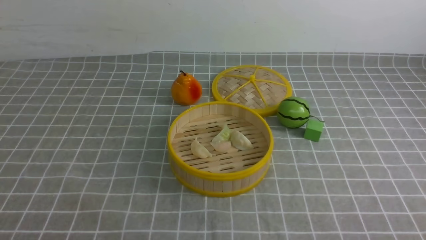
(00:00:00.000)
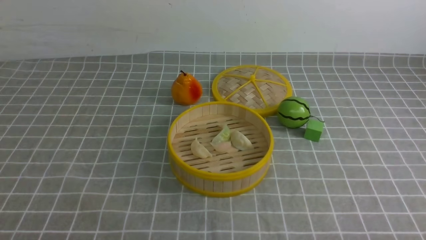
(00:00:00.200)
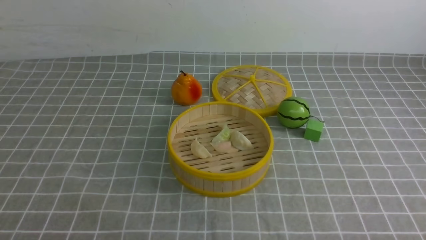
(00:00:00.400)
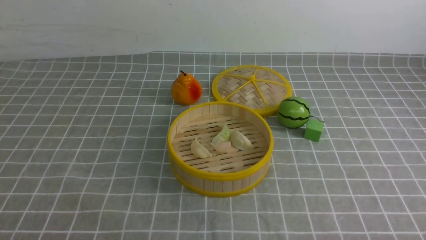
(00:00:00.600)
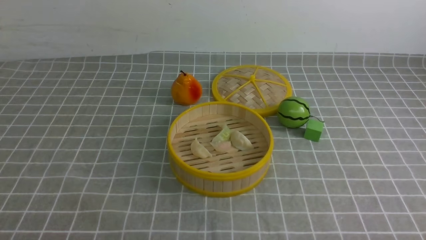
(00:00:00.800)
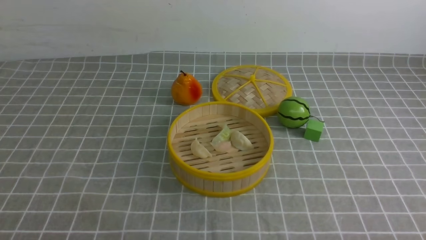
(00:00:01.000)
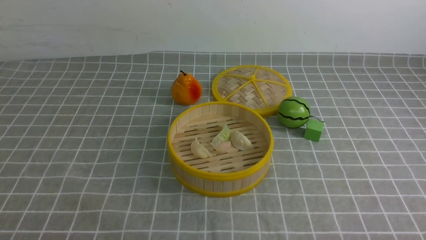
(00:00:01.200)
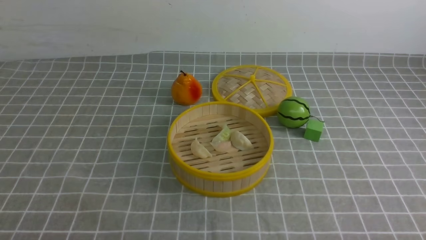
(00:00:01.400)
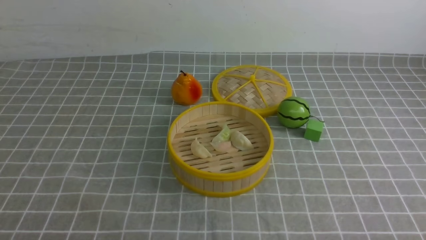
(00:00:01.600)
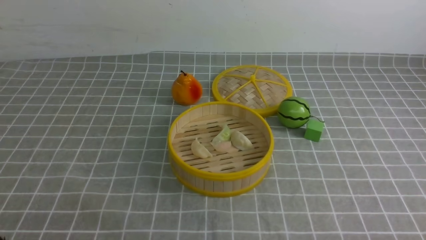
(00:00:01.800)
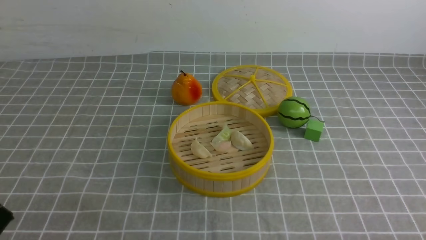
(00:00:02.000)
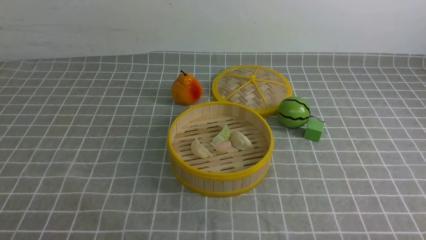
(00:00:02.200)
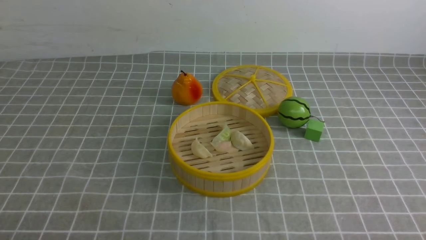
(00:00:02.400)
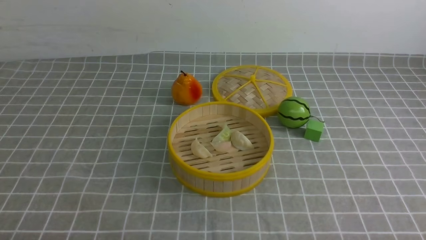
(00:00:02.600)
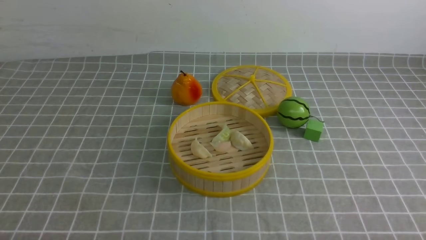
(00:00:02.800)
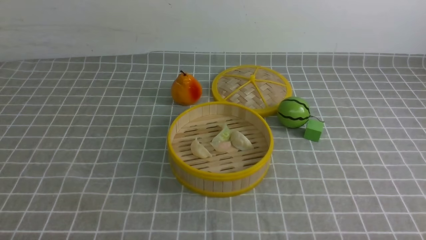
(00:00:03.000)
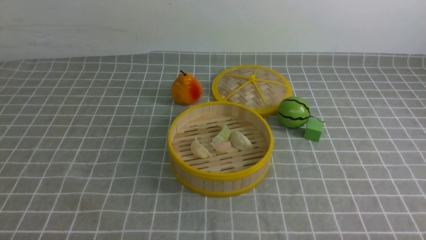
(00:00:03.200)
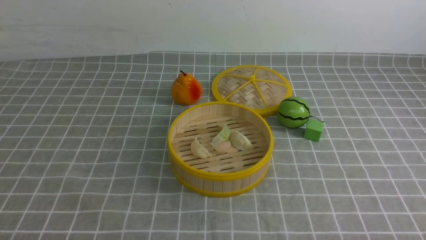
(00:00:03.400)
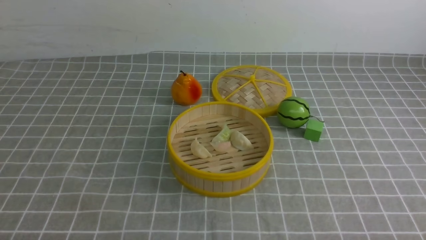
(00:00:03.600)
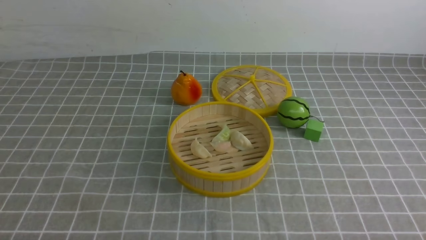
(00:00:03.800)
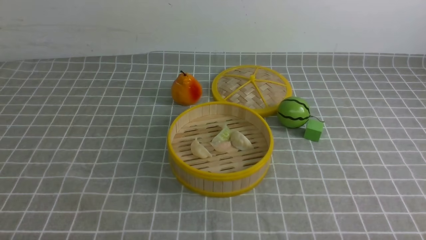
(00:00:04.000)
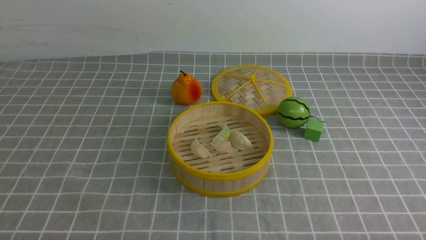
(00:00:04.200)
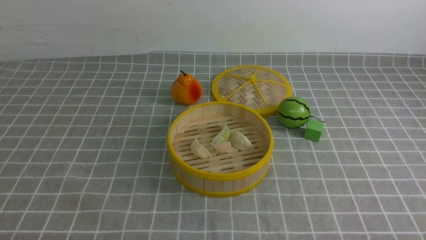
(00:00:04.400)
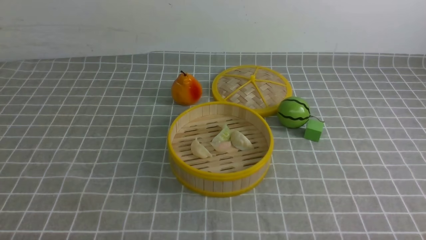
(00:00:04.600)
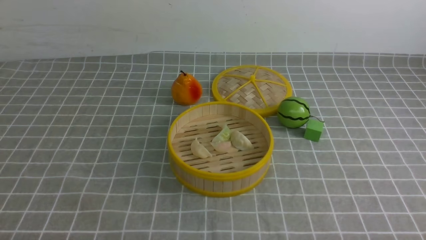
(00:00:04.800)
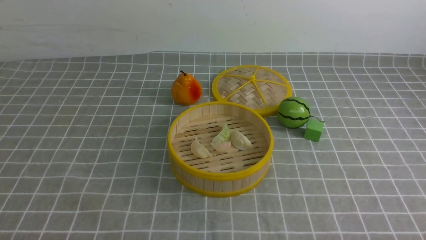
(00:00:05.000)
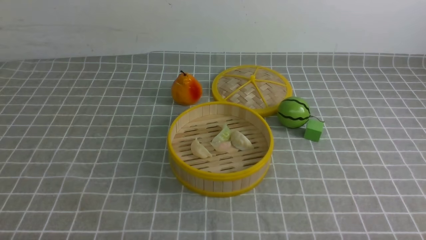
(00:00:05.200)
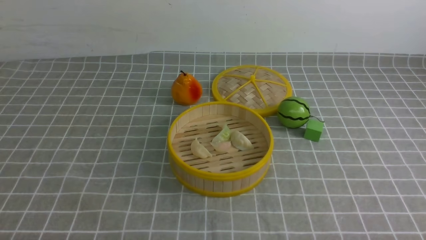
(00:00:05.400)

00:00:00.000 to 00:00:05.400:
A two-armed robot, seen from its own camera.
Task of the whole recording: put the dumplings into the steamer on the table with the grey tablecloth.
00:00:02.800 to 00:00:05.400: The two grippers keep their place.

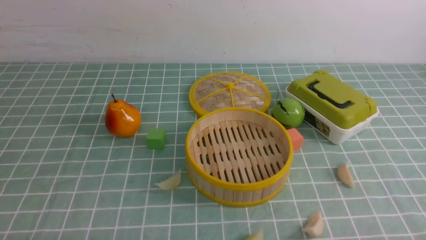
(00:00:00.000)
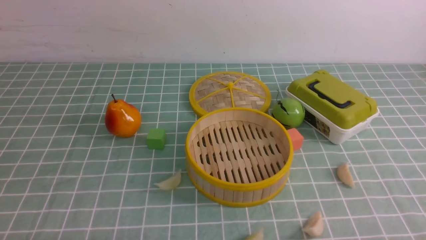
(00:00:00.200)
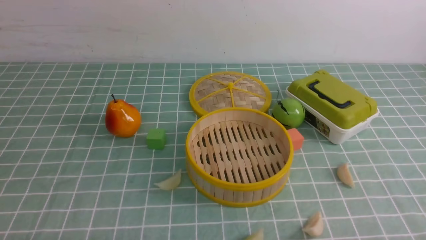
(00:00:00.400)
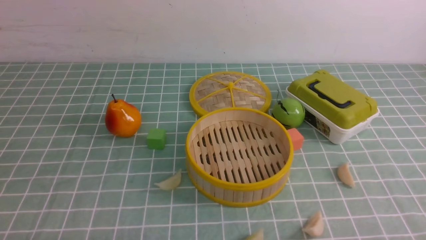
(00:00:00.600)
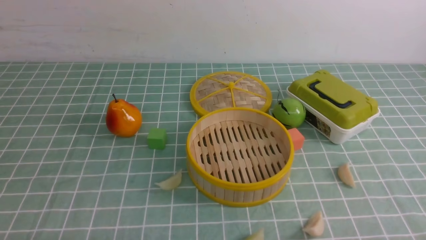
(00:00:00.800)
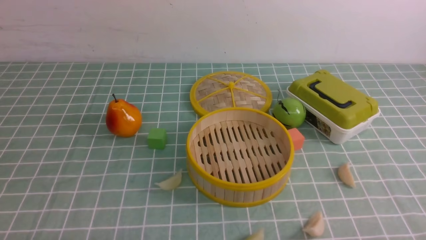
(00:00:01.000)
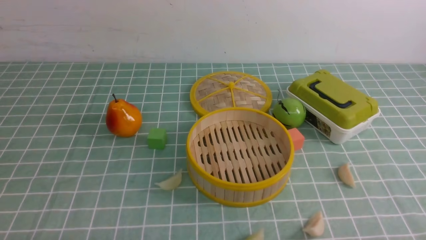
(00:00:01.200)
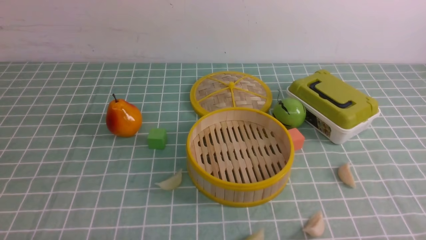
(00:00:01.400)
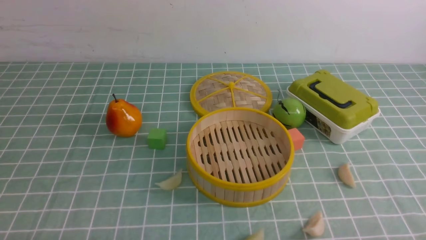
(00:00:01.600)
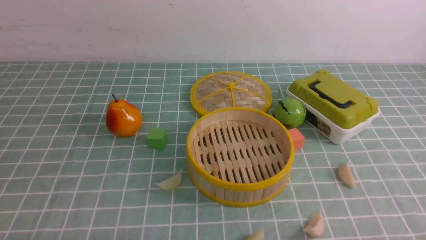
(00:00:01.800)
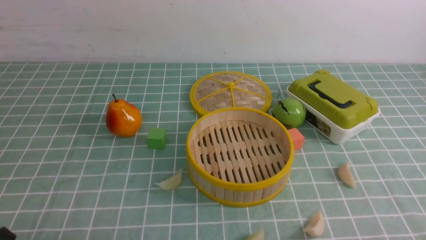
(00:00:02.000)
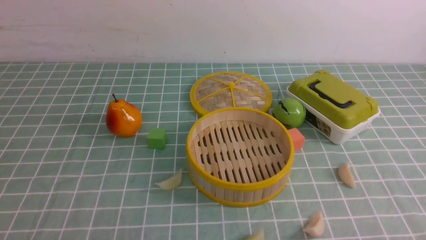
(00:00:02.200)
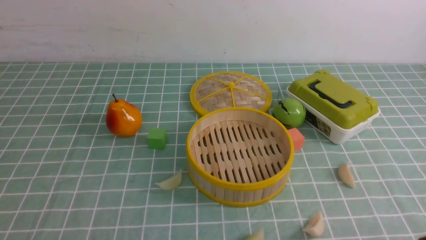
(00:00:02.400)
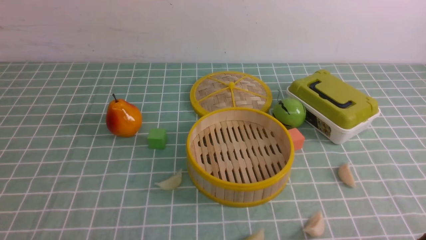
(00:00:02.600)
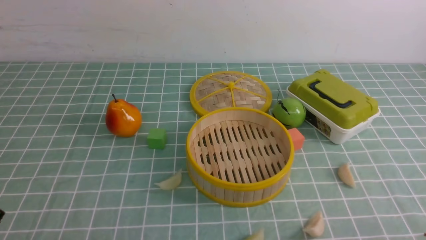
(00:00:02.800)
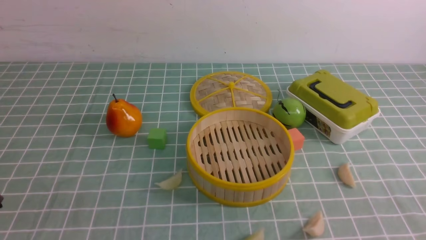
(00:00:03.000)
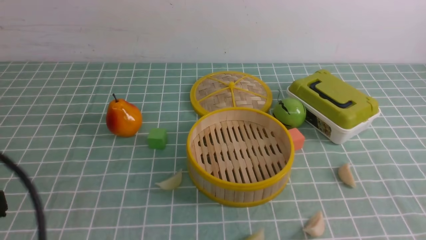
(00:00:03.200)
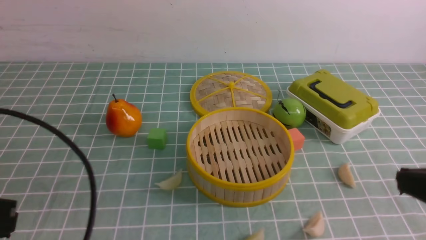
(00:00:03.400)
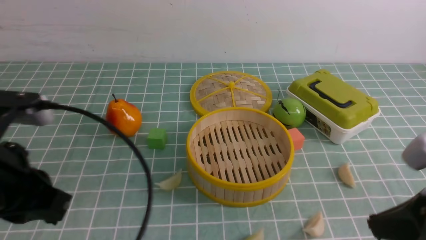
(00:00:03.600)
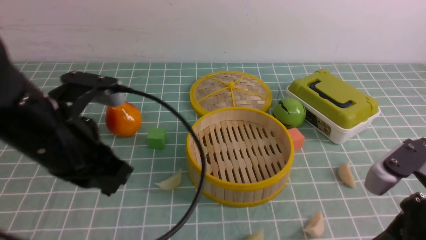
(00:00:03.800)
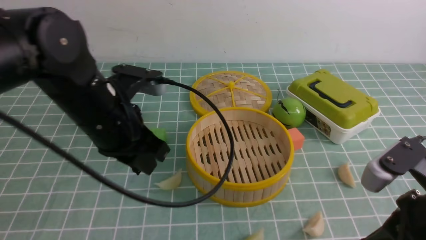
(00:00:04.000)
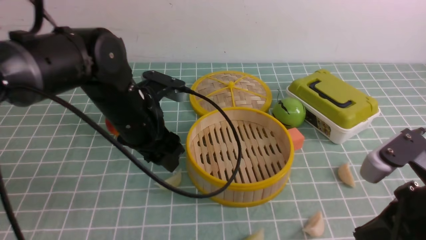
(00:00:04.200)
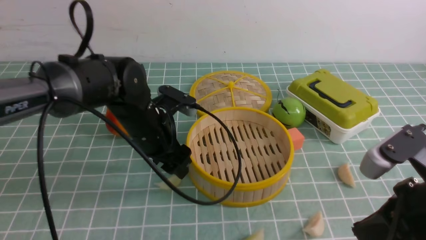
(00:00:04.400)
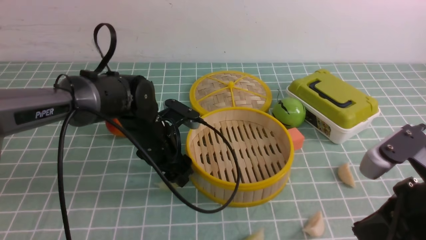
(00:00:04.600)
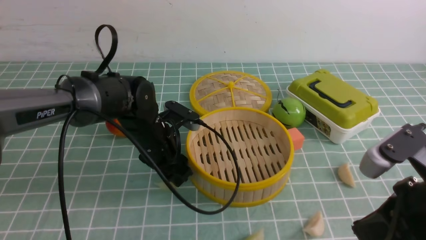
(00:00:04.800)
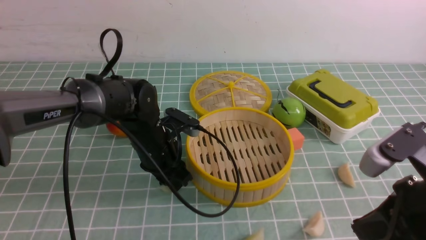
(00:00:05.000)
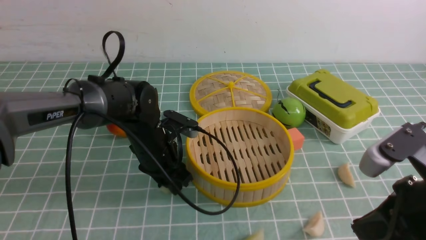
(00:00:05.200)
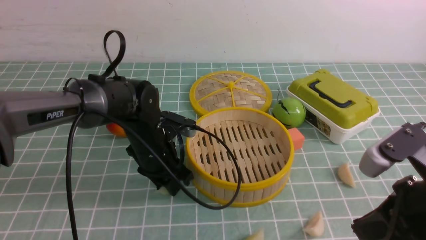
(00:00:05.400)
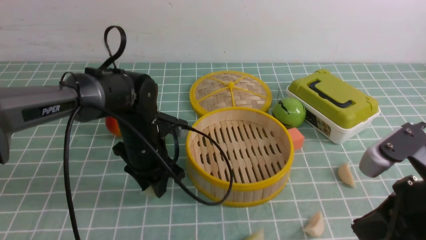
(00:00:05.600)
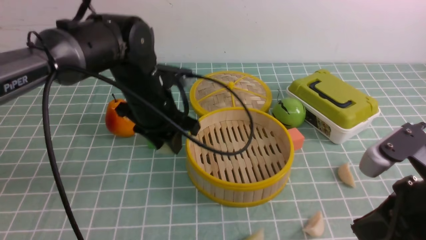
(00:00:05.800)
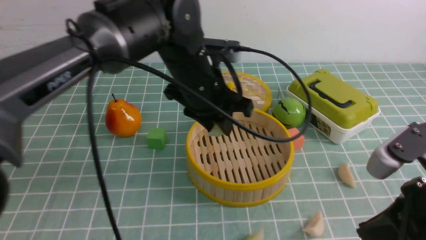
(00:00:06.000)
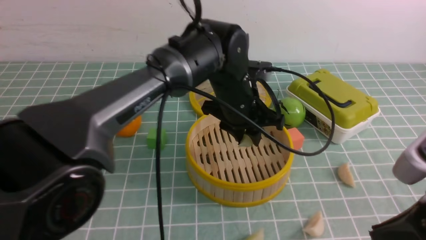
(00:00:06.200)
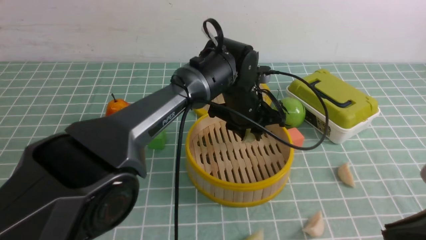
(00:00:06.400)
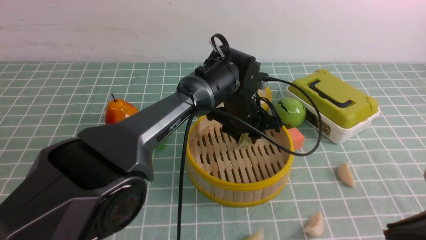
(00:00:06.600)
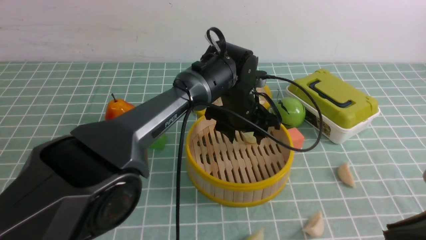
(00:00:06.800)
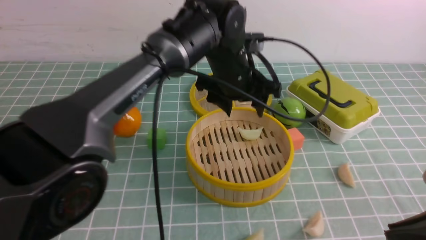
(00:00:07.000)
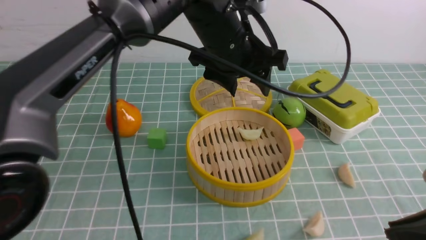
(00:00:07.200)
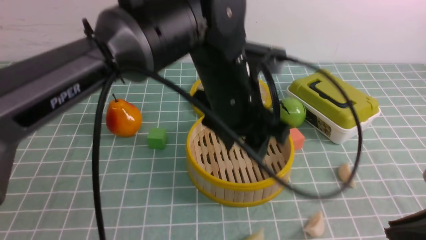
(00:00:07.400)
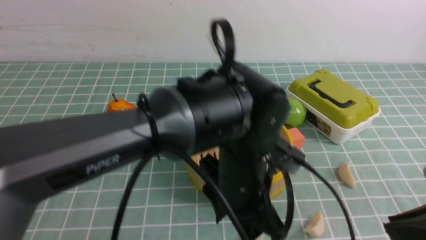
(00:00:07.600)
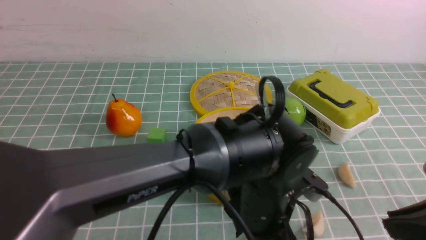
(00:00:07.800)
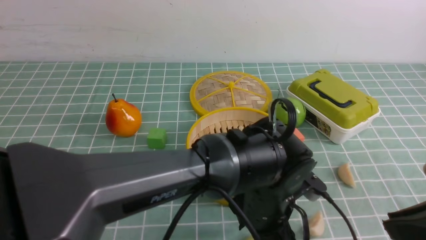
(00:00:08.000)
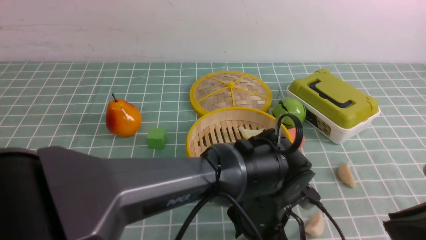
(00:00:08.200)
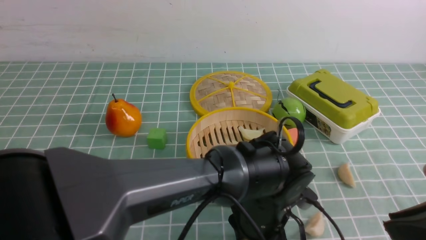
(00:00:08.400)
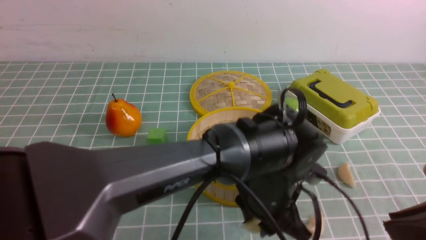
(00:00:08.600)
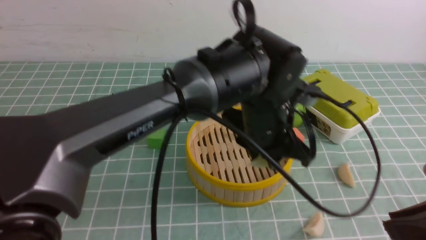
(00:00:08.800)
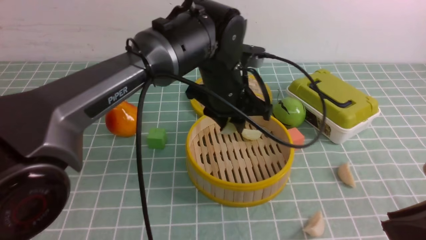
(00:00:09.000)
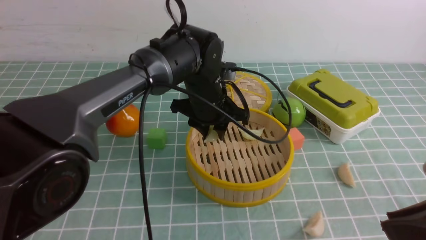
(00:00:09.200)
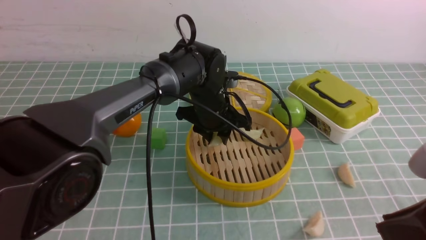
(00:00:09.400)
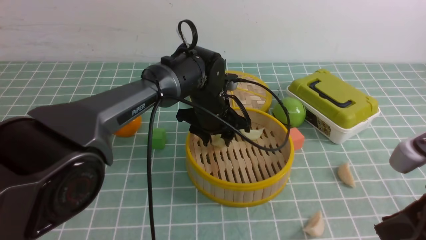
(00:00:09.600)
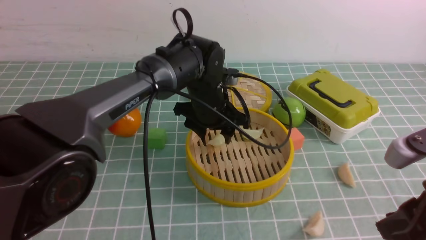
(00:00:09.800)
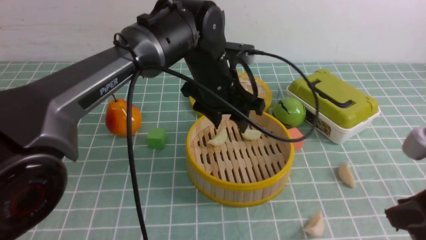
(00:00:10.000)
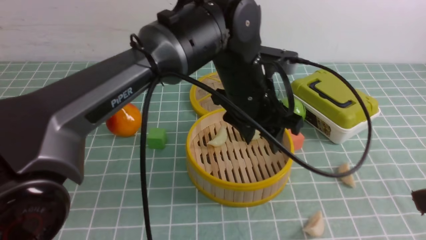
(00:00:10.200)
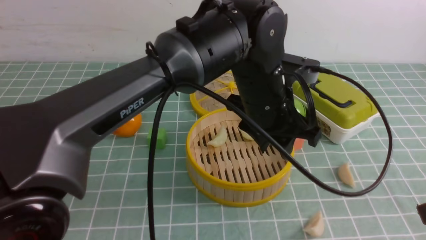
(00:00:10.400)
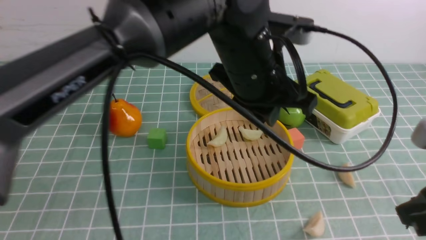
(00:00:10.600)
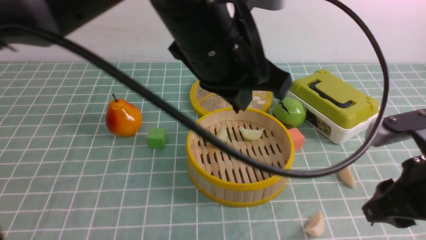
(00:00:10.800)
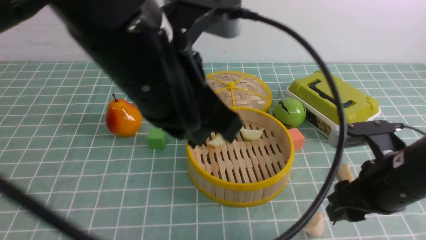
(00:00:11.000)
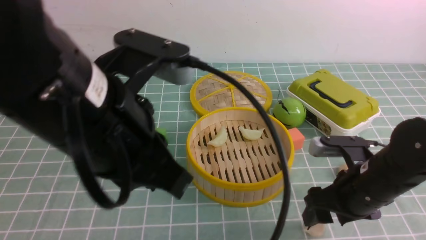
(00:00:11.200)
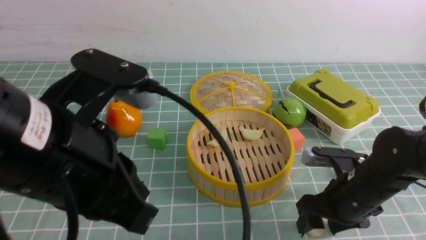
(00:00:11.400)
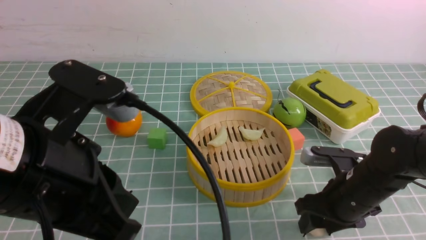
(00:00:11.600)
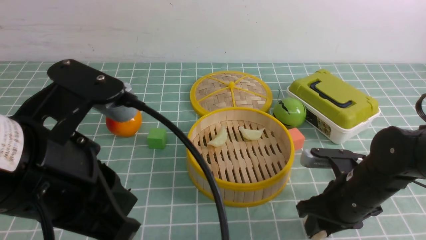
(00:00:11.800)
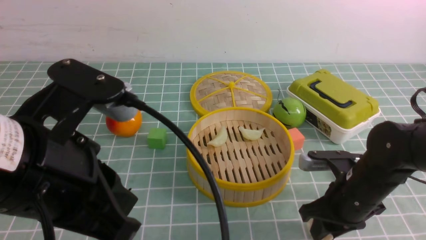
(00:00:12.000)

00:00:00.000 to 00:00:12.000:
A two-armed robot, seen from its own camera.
Task of the whole recording: put the dumplings into the steamer on the table with the blue tablecloth.
Step, 00:00:00.000 to 00:00:05.000: use the left arm to grab a dumpling.
Step, 00:00:05.200 to 00:00:06.800: use the left arm to put the dumpling into the steamer.
Step, 00:00:07.000 to 00:00:08.200: use the left arm to grab a dumpling.
Step, 00:00:08.400 to 00:00:09.800: use the left arm to put the dumpling into the steamer.
Step, 00:00:10.000 to 00:00:11.600: use the right arm to grab a dumpling.
00:00:03.000 to 00:00:04.400: The left gripper heads forward and to the right, covering roughly 35 cm, and opens its fingers, while the right gripper travels forward and to the left by some 10 cm.
00:00:04.400 to 00:00:06.000: The left gripper moves to the right, roughly 5 cm, and closes.
00:00:06.000 to 00:00:07.600: The left gripper shifts about 15 cm backward and to the right, and opens, while the right gripper changes place by some 5 cm.
00:00:07.600 to 00:00:09.000: The left gripper shifts roughly 5 cm forward, and closes its fingers.
00:00:10.400 to 00:00:12.000: The right gripper moves downward and forward, approximately 25 cm, and opens, then closes again. The left gripper goes about 25 cm backward and to the left, and closes its fingers.
